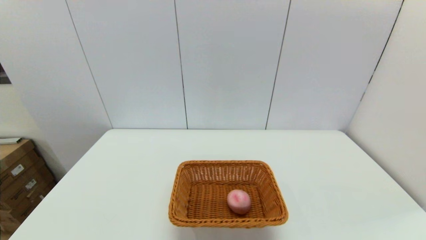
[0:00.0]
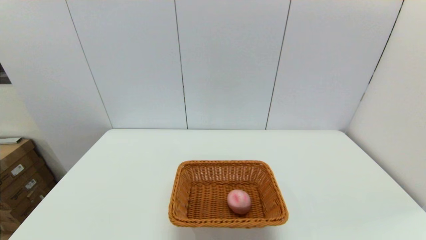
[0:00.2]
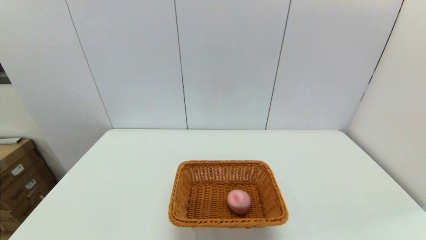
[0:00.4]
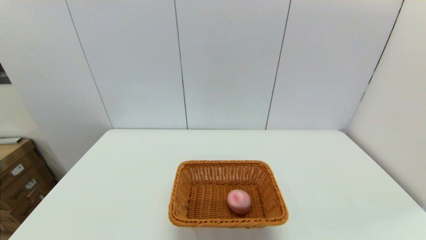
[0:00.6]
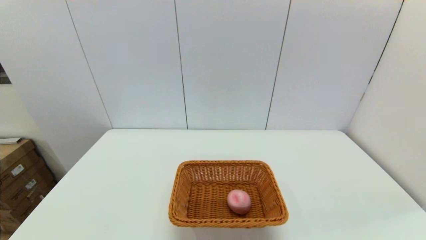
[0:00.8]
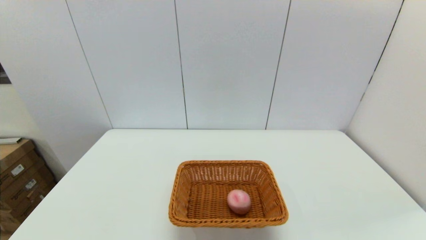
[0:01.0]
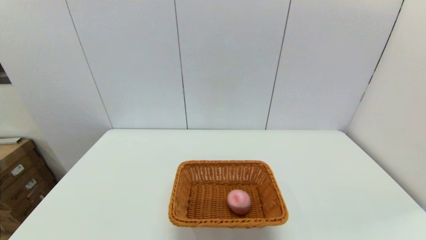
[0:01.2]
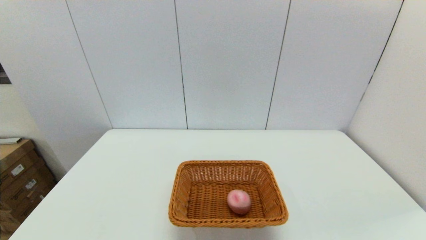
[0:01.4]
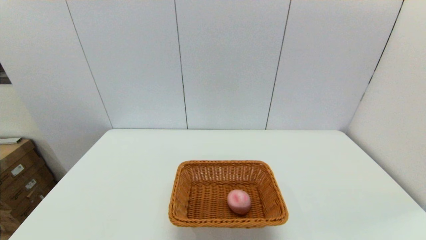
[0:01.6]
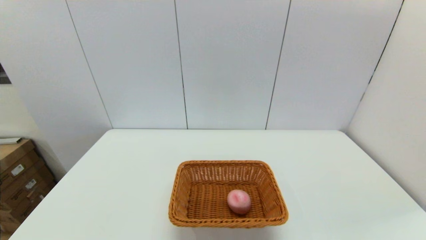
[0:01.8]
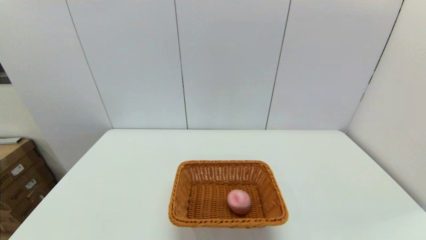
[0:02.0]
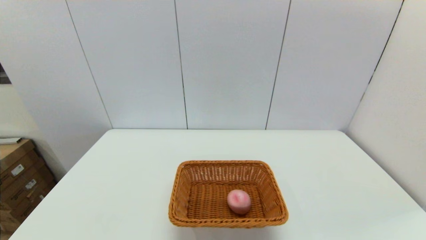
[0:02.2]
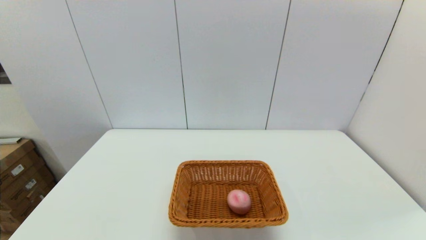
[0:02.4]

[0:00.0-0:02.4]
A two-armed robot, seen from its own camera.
0:01.2 to 0:02.4: The two grippers keep their place.
